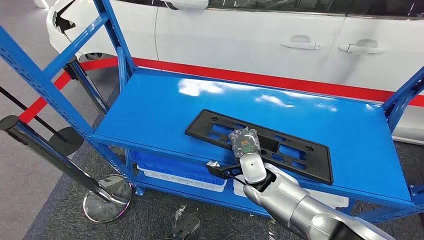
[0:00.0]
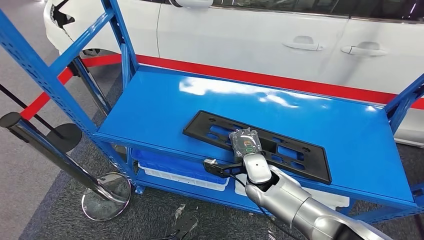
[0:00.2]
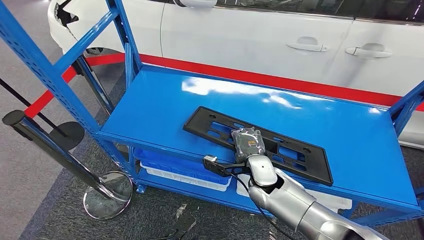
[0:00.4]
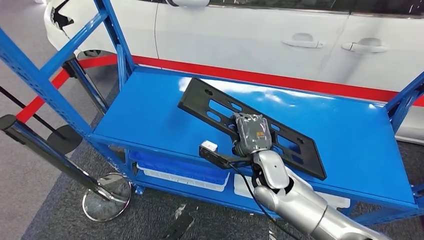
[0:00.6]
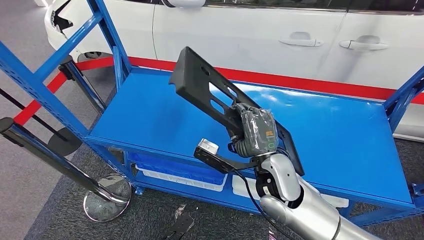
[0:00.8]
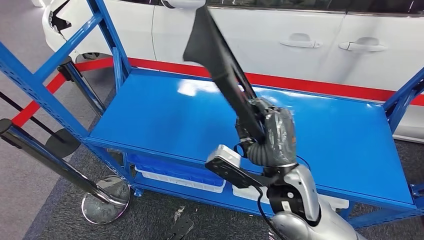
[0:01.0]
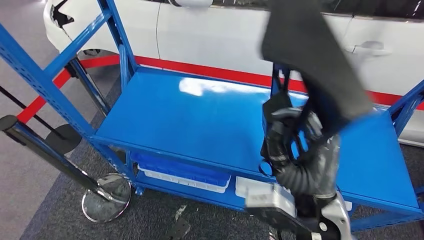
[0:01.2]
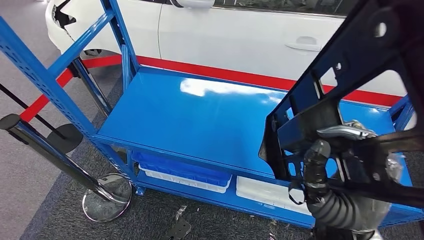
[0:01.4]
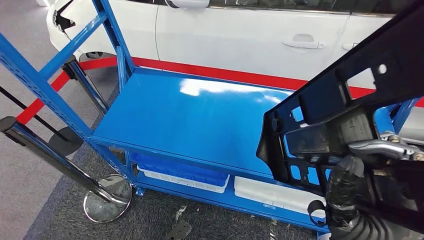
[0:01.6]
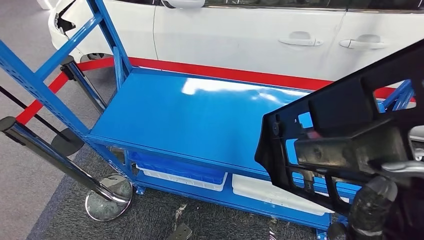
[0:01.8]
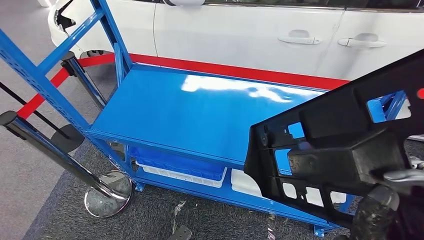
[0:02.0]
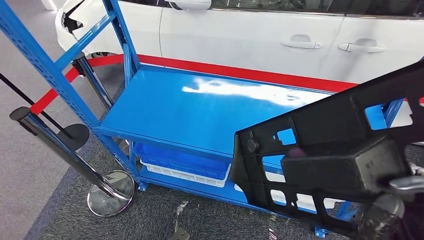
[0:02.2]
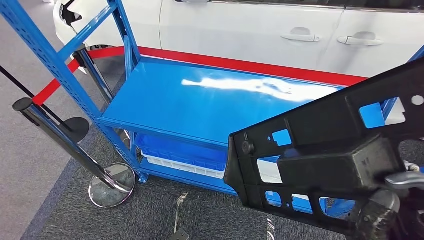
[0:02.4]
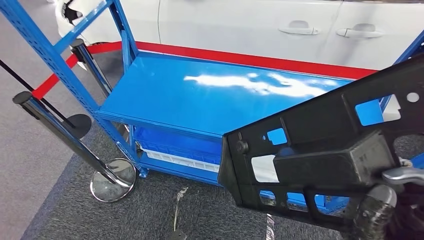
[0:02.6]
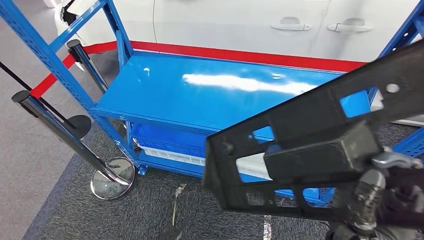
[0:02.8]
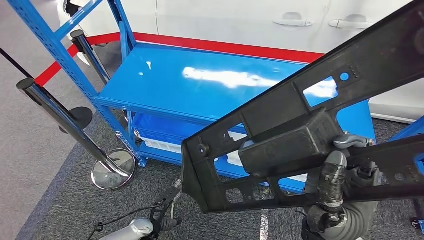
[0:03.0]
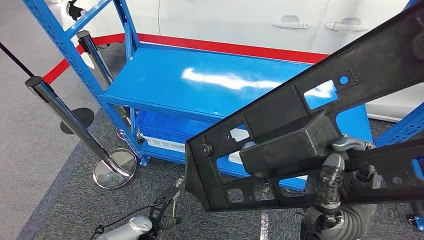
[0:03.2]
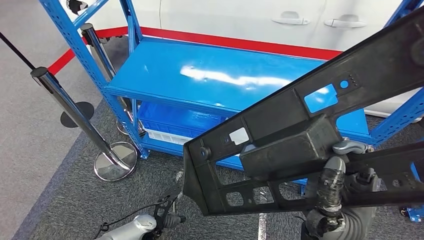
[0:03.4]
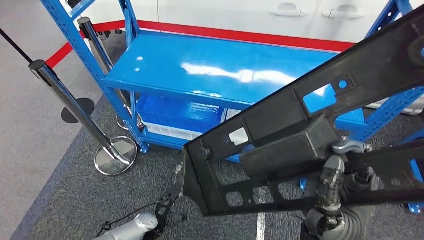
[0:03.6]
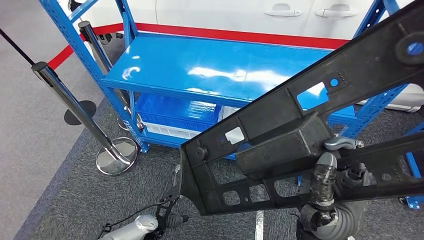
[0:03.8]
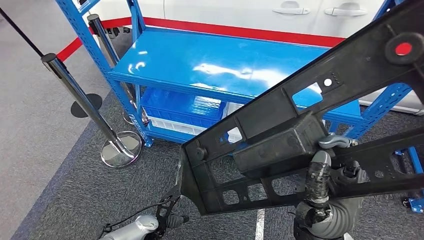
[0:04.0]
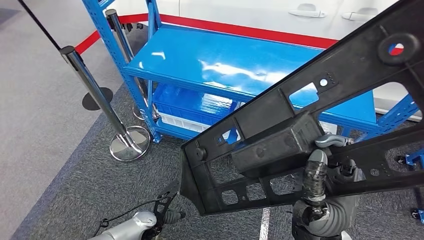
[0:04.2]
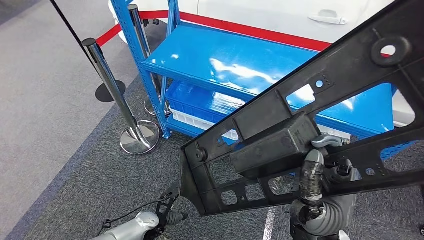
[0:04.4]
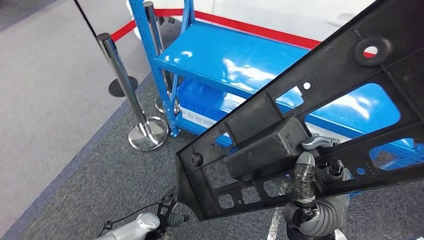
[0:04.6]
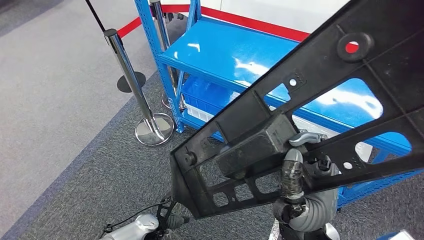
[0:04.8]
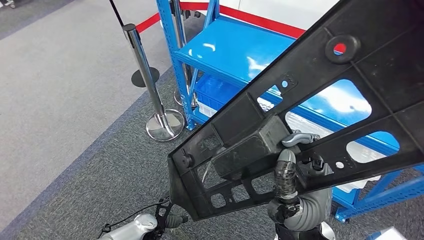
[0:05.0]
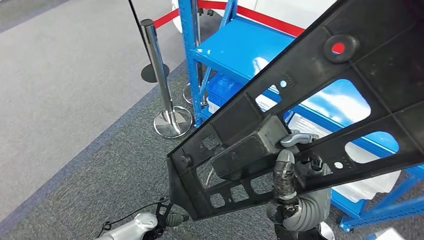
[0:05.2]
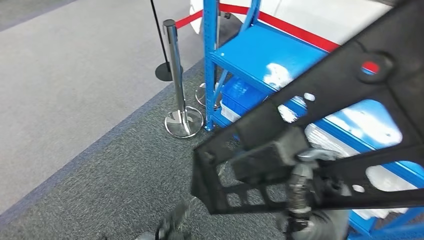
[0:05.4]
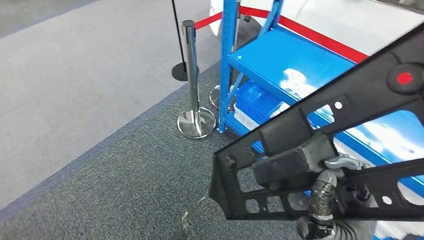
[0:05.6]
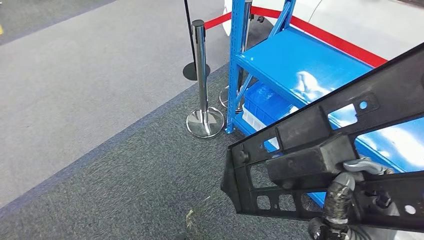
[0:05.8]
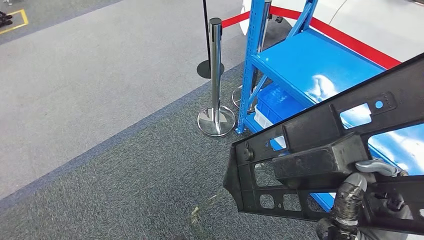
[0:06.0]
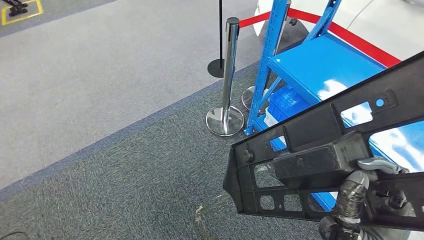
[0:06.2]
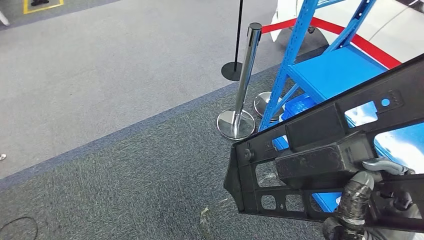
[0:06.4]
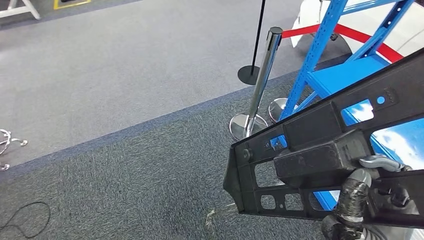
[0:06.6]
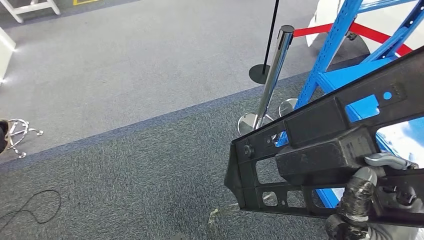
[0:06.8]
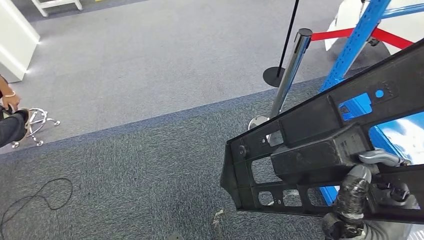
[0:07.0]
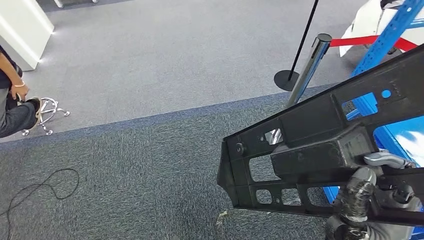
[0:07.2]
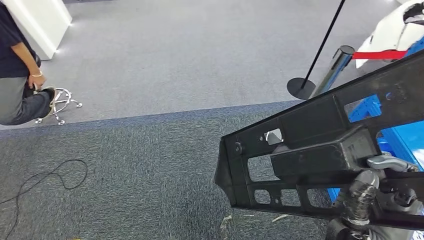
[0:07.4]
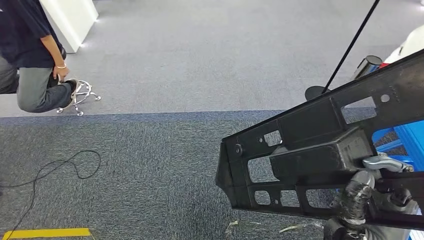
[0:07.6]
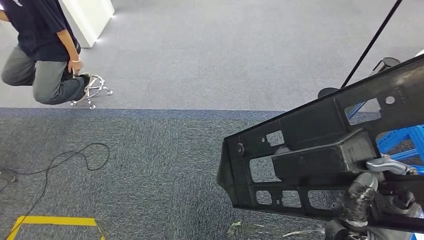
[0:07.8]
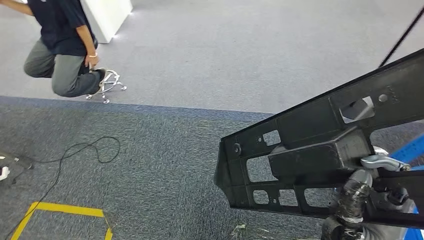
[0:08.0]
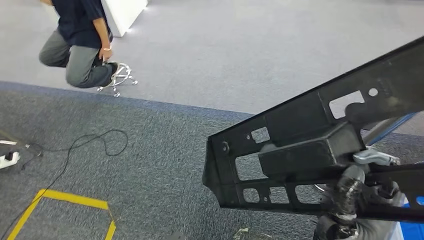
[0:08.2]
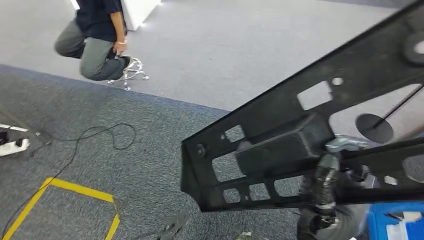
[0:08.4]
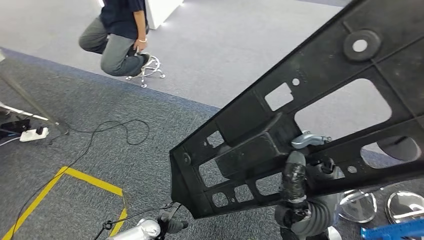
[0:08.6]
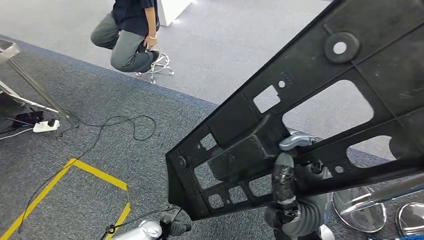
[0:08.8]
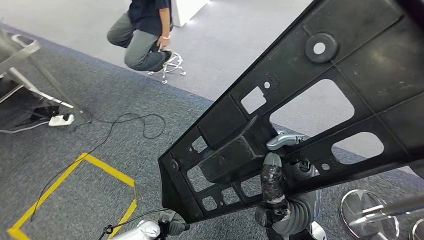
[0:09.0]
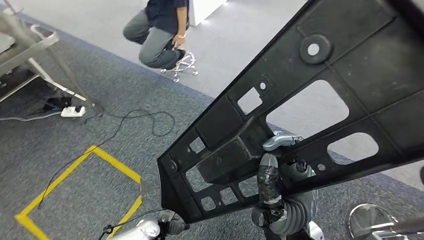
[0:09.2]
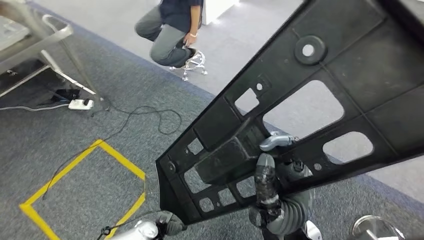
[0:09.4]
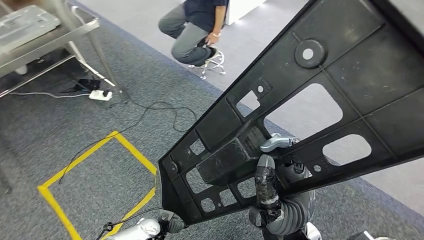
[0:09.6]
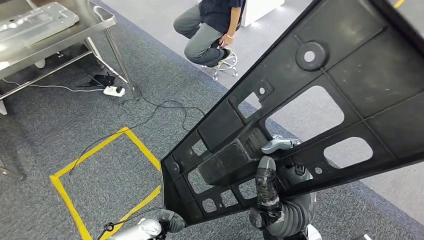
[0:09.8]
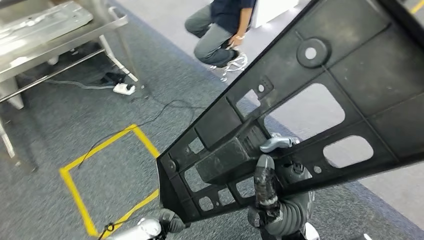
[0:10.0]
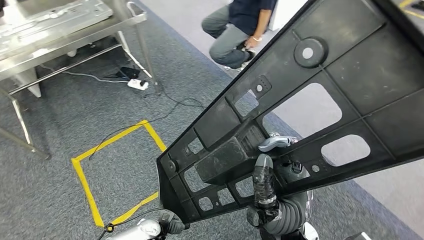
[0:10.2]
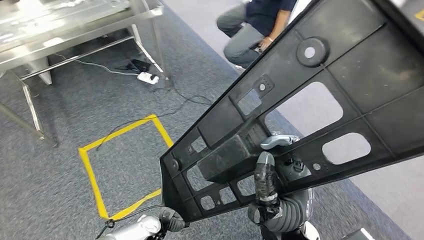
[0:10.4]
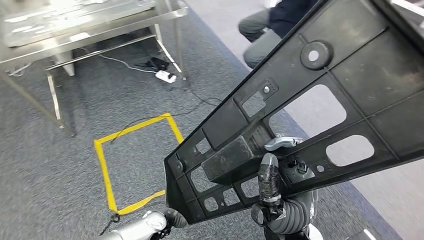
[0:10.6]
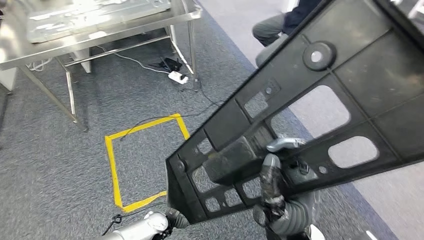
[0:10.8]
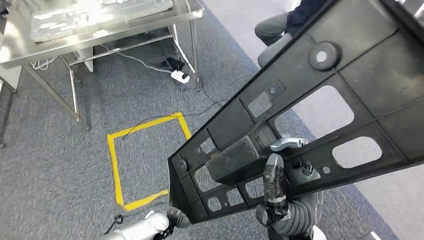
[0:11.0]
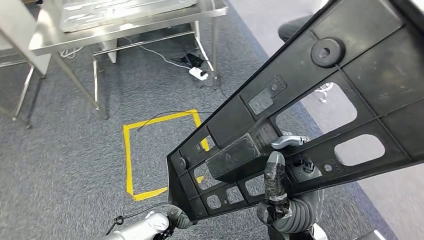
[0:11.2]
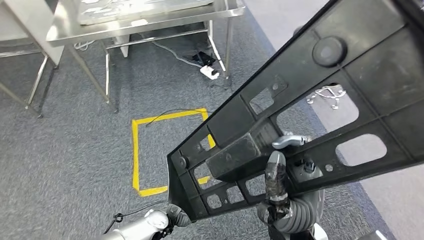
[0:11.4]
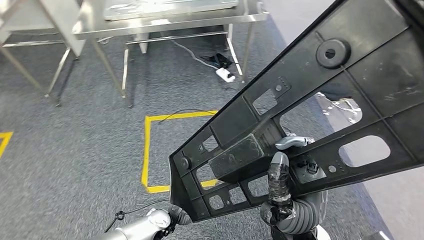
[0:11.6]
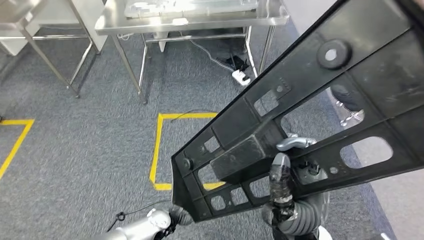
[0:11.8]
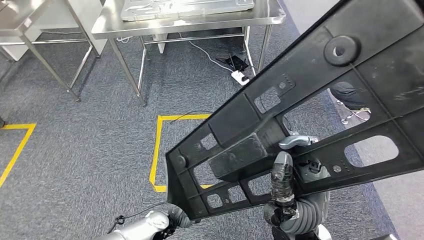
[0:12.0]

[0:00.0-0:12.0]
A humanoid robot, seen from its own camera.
Step, 0:00.0 to 0:04.6: Pick up the large material from the shelf.

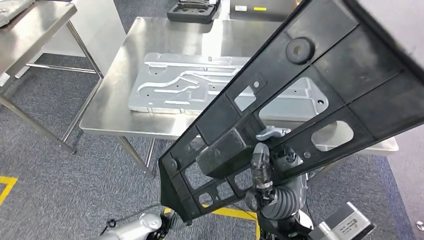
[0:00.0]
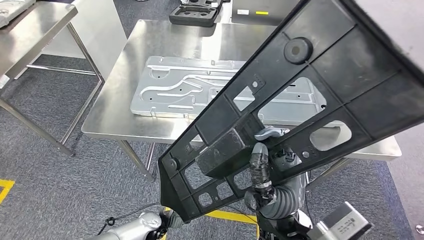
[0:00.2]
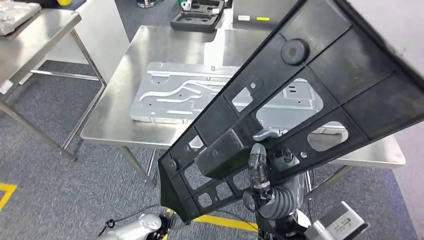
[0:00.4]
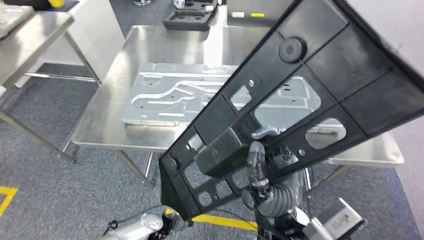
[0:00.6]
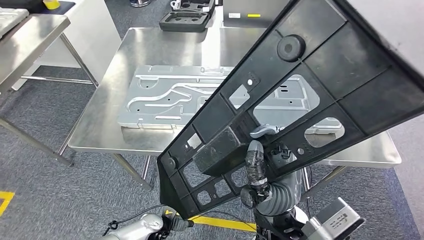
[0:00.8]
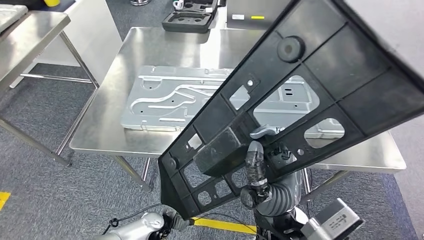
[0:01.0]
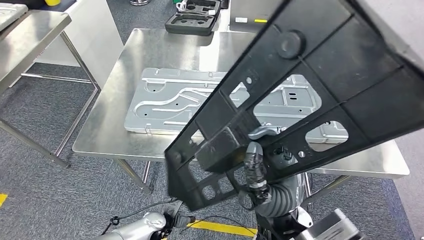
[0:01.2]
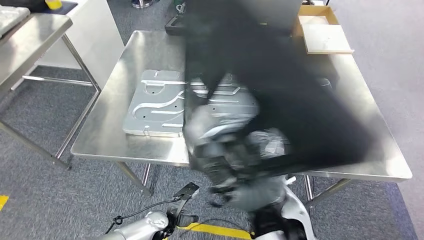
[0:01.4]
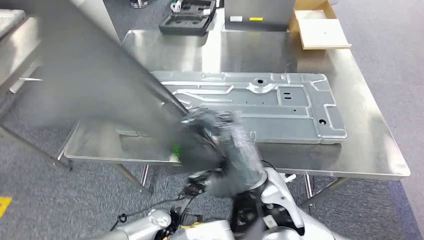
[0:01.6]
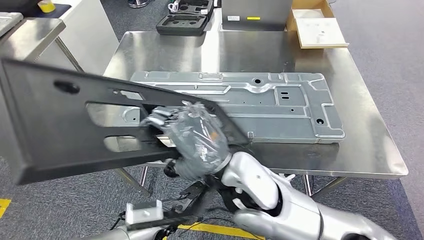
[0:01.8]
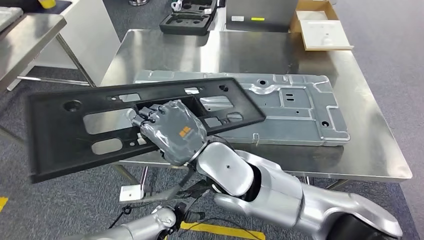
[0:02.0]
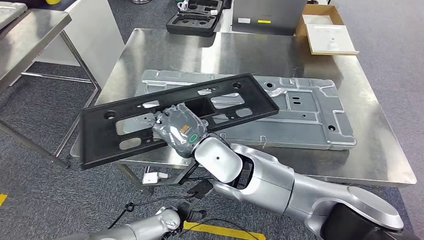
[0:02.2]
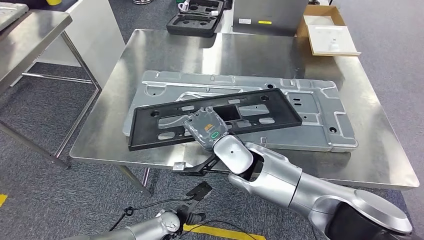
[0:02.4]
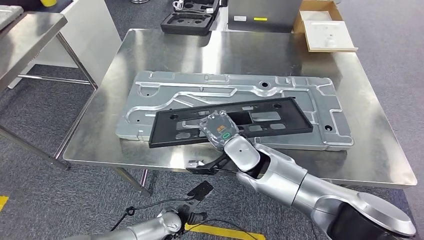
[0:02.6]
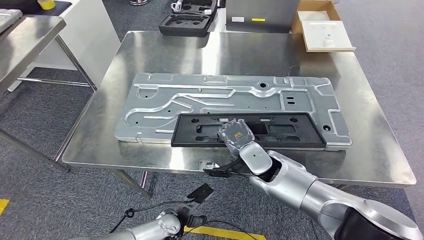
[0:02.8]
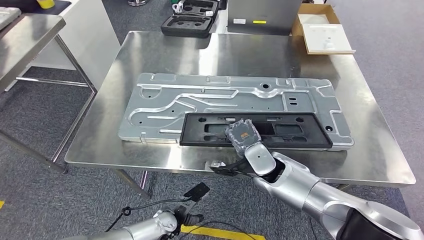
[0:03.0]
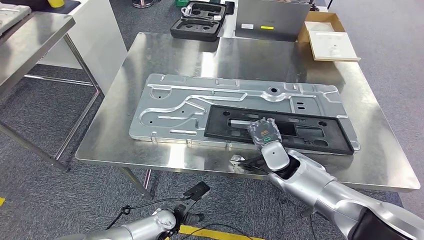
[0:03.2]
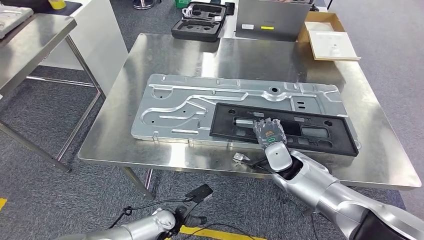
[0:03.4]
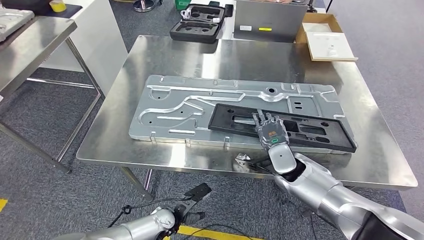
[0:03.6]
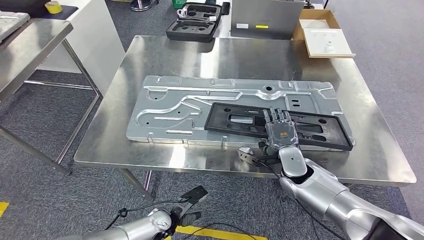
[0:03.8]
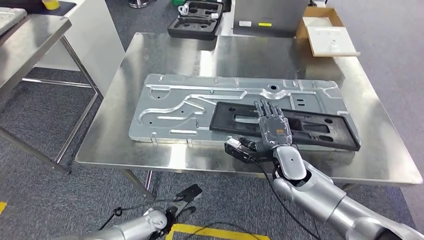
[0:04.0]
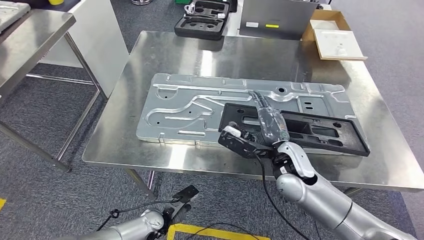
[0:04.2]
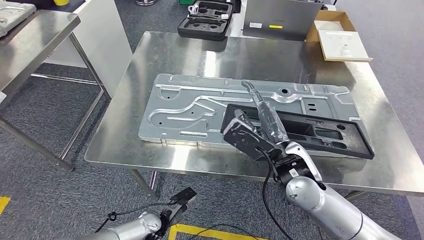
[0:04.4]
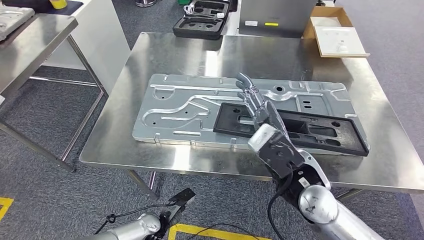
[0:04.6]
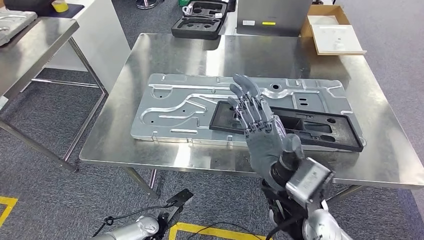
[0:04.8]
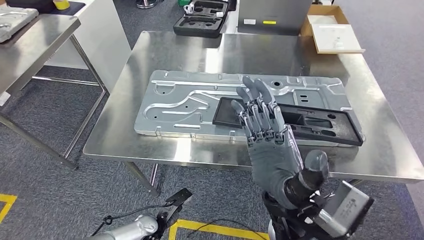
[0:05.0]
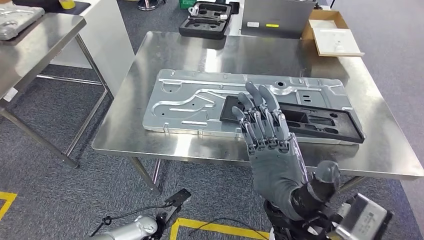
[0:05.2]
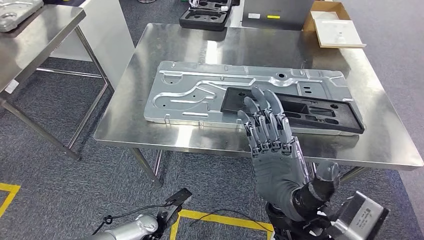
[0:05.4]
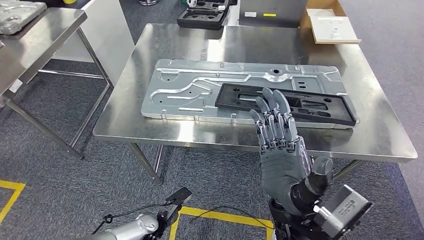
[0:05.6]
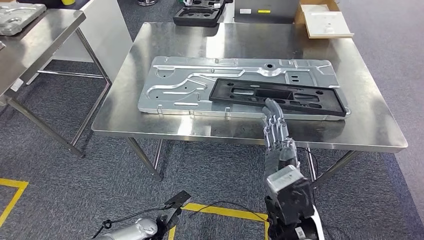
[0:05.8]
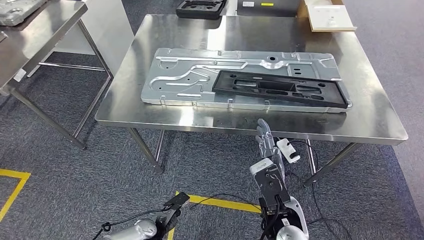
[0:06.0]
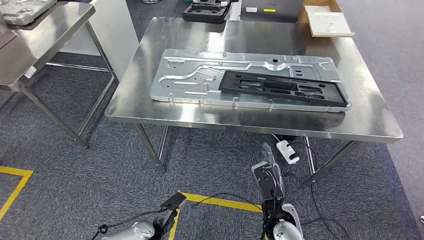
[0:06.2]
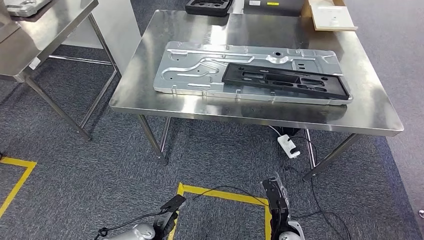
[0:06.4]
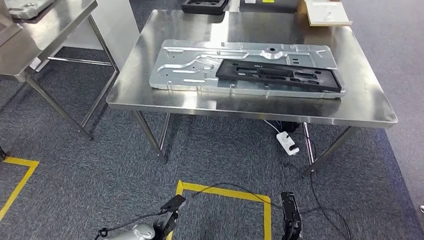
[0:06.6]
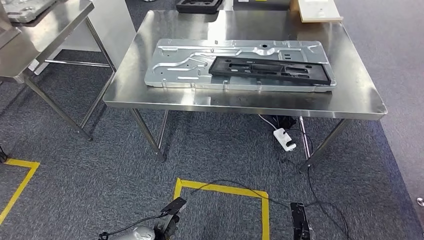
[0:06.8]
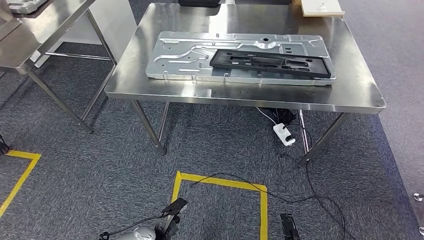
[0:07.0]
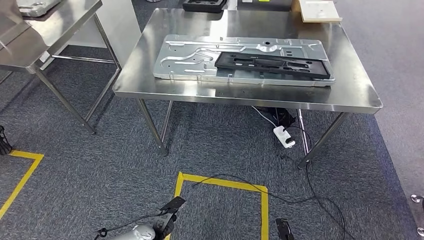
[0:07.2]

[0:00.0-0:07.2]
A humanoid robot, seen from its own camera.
Step, 0:02.2 to 0:05.4: Insert the large material into the corresponding slot on the workbench.
